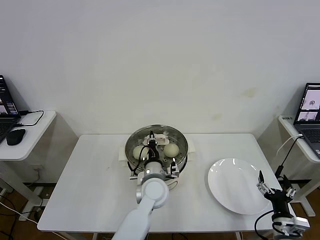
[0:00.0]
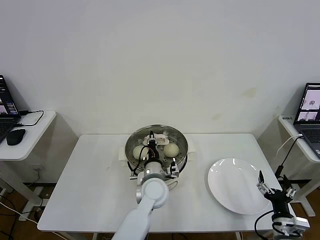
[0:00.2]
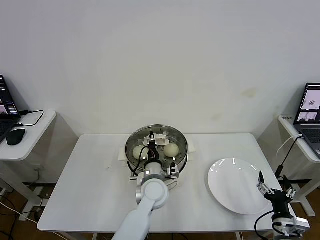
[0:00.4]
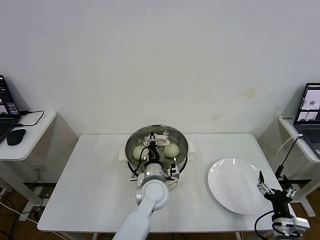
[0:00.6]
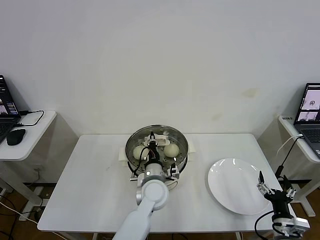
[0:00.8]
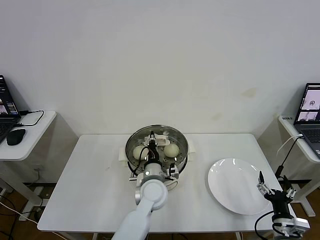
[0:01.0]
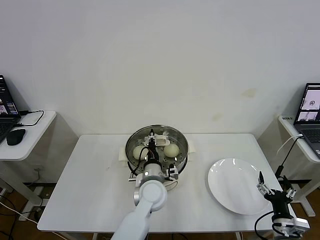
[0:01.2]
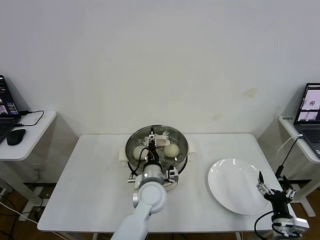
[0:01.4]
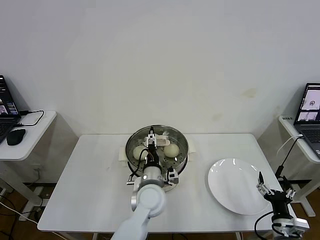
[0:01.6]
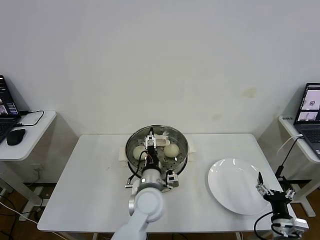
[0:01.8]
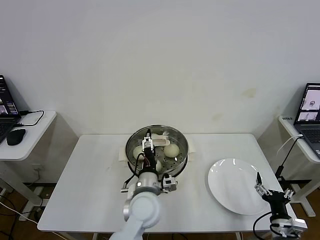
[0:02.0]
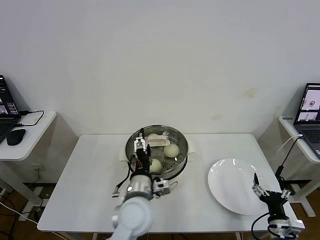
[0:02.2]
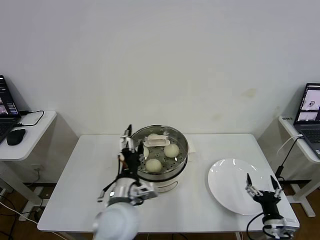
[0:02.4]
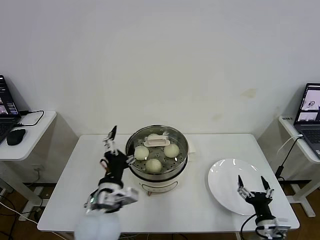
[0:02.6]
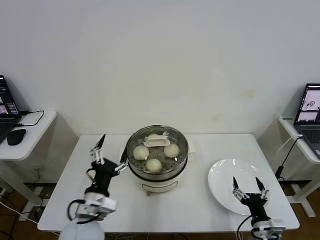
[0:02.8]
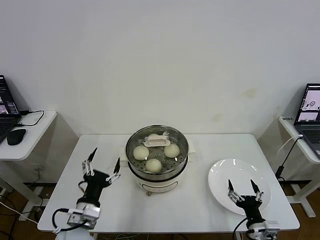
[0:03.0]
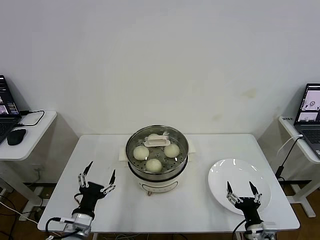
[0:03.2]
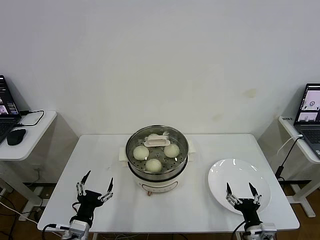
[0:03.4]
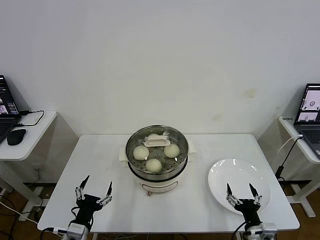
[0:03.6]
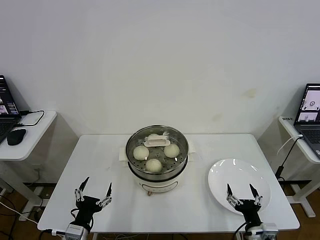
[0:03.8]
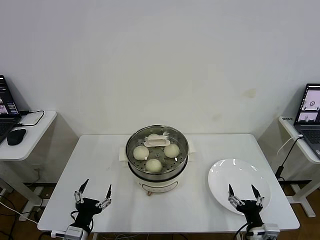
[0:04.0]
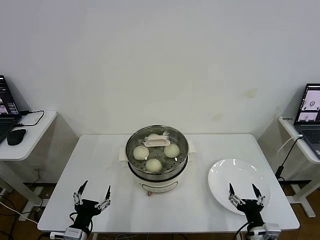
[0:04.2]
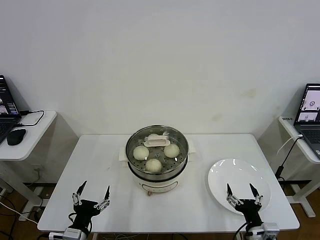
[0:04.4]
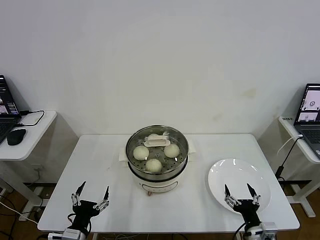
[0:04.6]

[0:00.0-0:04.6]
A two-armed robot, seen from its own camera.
Task of the whole recording: take steamed baozi put them in steamer then cover it.
0:00.0 to 0:01.6: The left gripper opens.
0:01.6 to 0:03.0: The left gripper heads to the left and backward, covering some 25 cm. The right gripper travels to the left by approximately 5 cm.
0:03.0 to 0:04.6: The left gripper shifts roughly 10 cm downward and backward.
